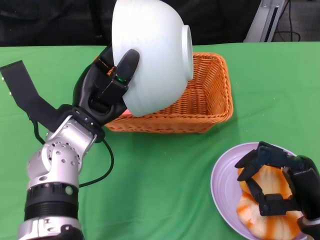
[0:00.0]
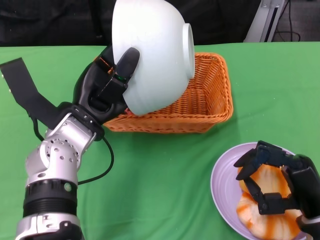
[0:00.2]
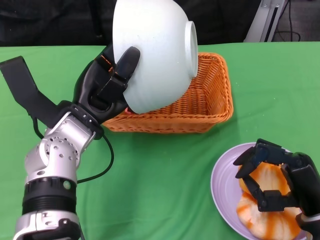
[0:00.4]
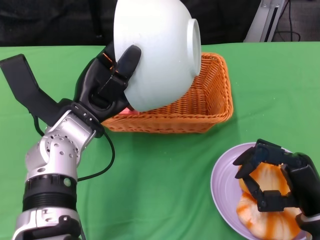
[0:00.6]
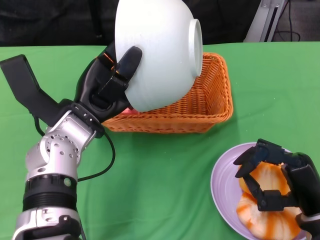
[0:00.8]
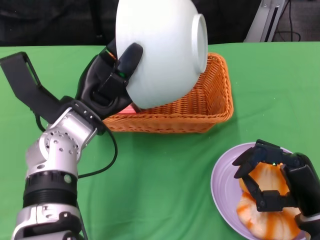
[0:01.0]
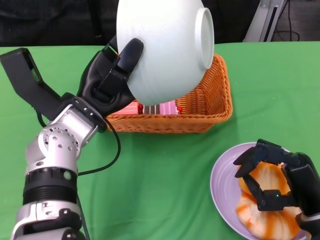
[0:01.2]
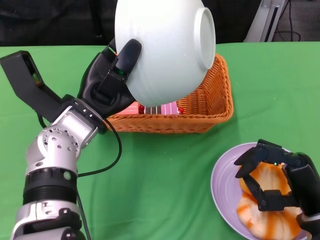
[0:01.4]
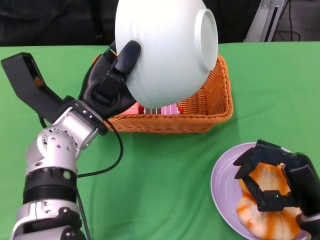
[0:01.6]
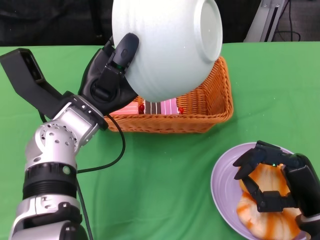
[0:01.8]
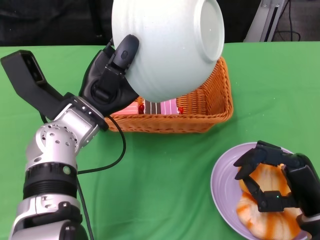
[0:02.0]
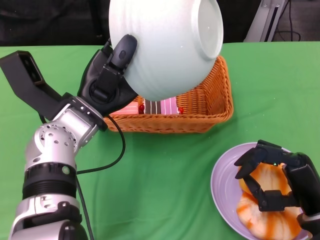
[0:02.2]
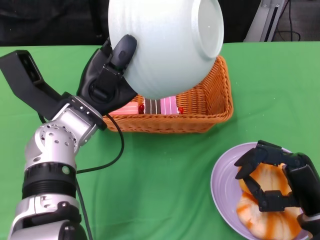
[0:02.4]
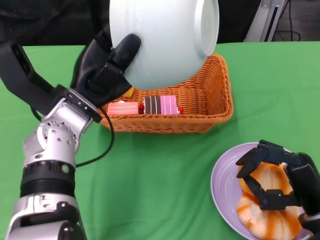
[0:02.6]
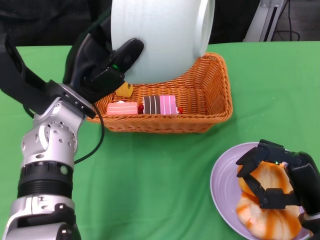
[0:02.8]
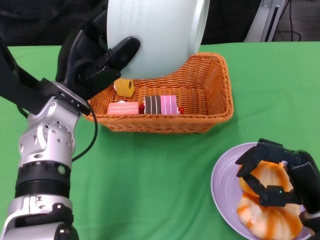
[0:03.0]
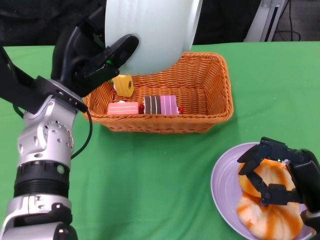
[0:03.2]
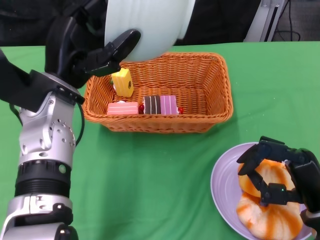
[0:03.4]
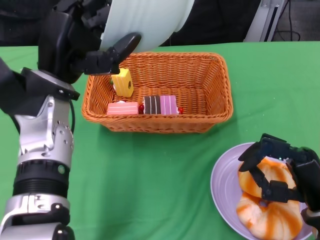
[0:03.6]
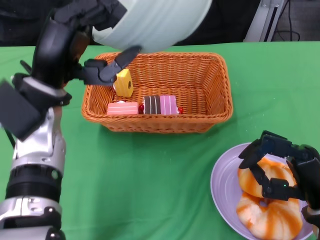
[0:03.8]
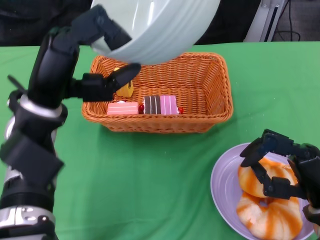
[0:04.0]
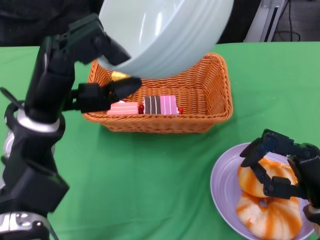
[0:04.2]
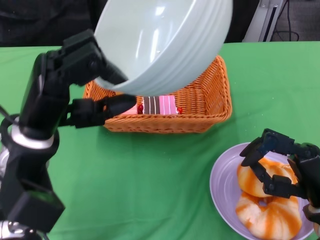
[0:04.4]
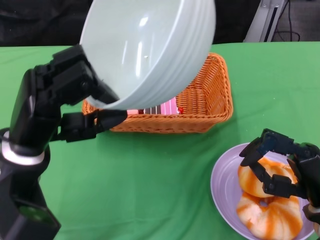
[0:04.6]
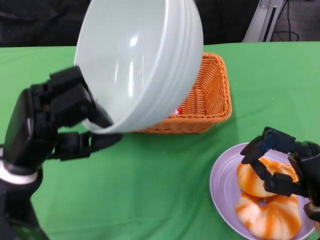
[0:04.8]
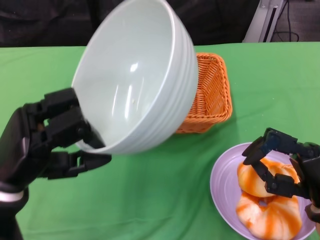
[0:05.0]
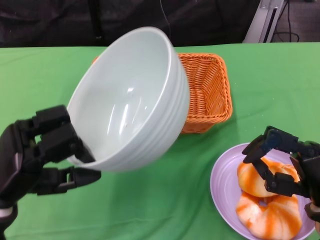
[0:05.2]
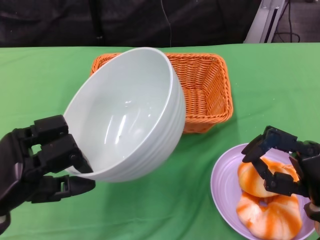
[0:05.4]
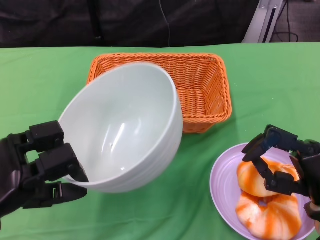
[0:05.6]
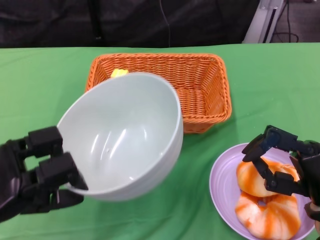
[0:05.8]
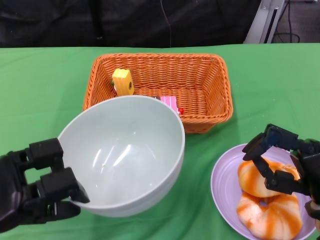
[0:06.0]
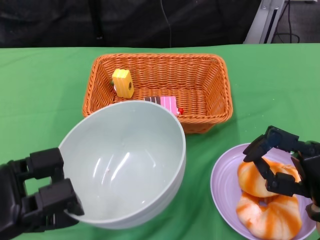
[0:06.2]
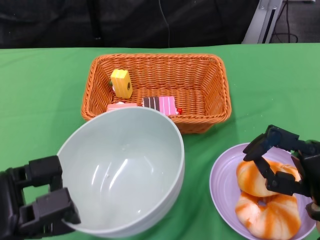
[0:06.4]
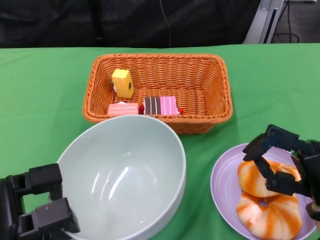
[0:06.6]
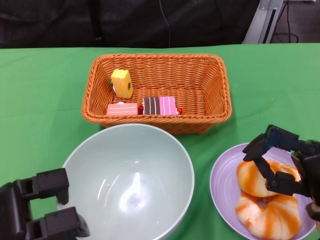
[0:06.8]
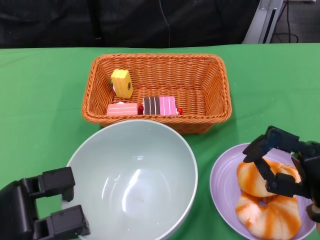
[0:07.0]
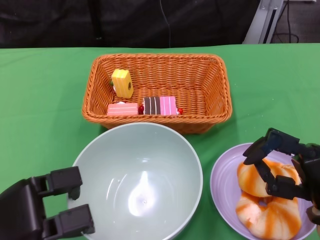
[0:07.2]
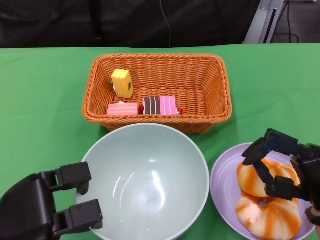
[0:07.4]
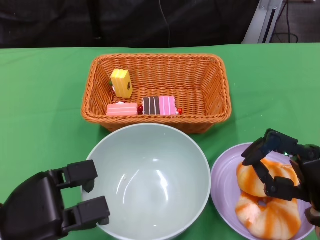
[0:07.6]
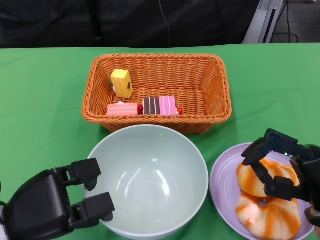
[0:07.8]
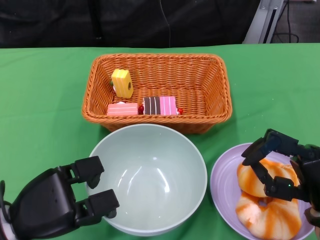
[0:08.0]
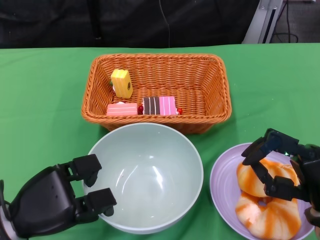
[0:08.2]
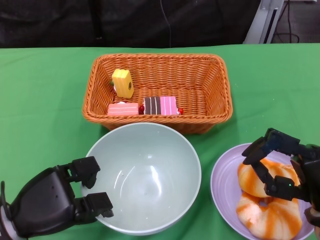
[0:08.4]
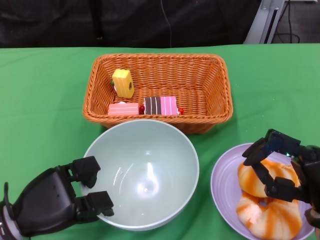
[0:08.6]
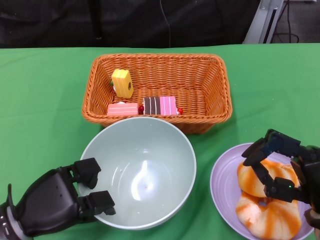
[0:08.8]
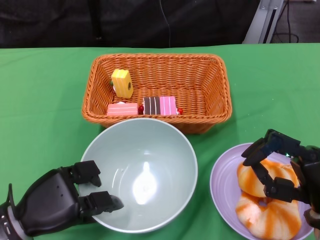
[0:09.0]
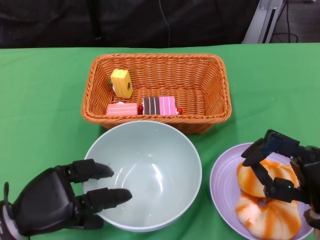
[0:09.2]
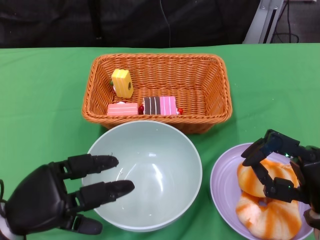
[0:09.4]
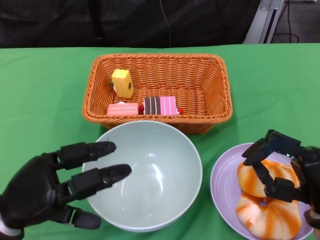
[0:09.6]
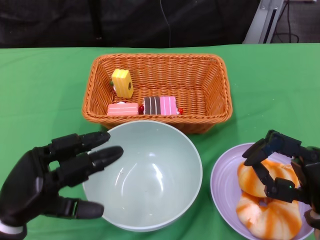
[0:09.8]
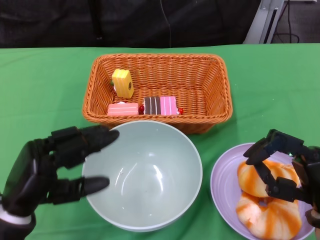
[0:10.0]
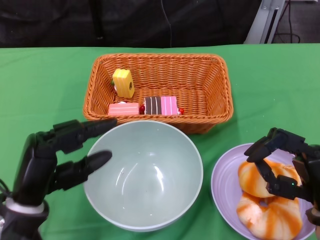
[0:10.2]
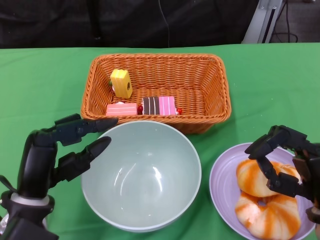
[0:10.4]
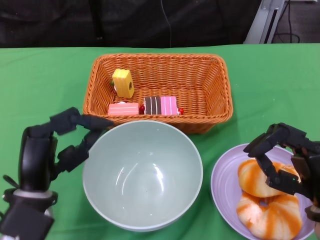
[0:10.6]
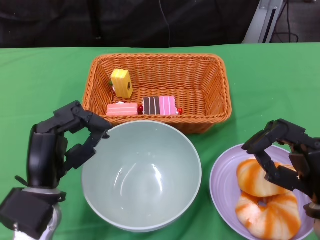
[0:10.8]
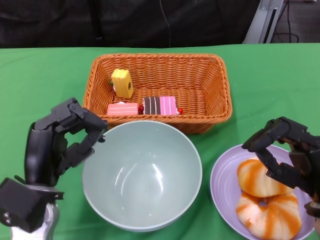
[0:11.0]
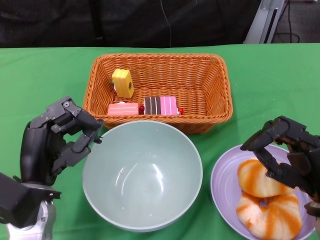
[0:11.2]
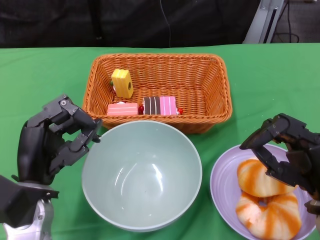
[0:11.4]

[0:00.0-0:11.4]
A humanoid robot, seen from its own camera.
Step, 0:00.0 to 0:02.8: Pour the cake into the basket with the left gripper.
Step, 0:03.0 to 0:10.2: Place the bowl on the table with the left gripper.
0:02.8 to 0:04.2: The left hand shifts by approximately 5 cm.
0:04.2 to 0:05.6: The left hand travels to the left, backward and downward by some 15 cm.
0:07.2 to 0:08.6: The hands stay close to where they were, moving slightly.

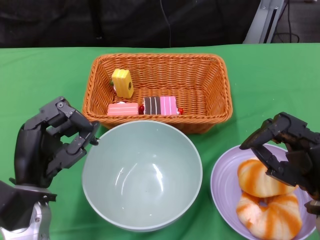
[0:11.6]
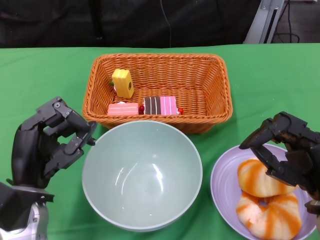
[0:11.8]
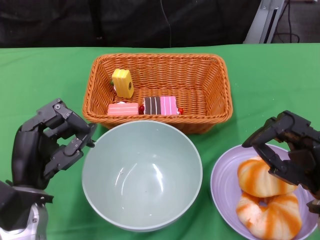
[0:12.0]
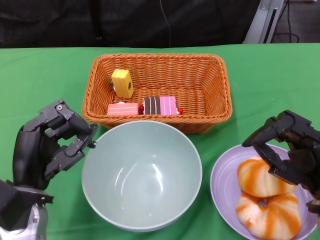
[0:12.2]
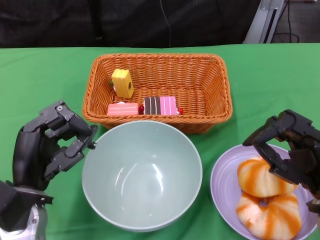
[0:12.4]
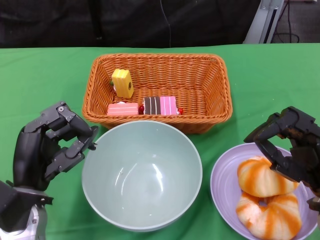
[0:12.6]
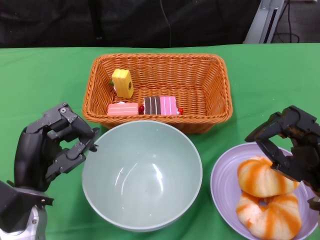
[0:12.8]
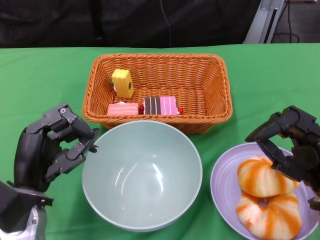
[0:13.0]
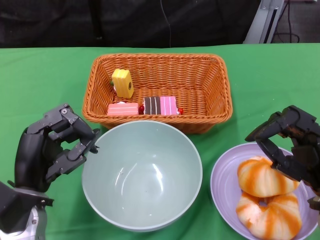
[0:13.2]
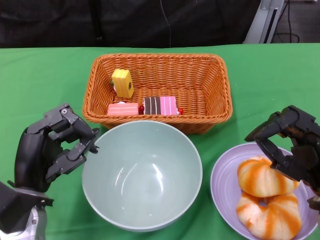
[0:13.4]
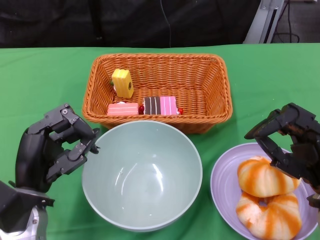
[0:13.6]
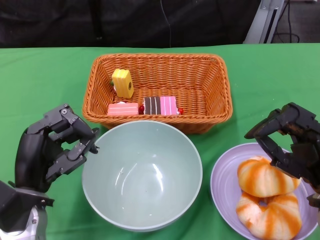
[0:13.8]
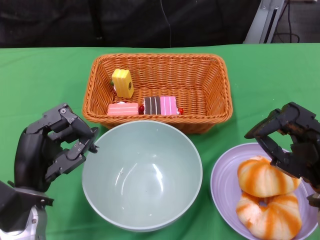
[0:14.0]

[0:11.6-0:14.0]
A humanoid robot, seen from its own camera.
0:11.6 to 0:14.0: Both hands stay put.
